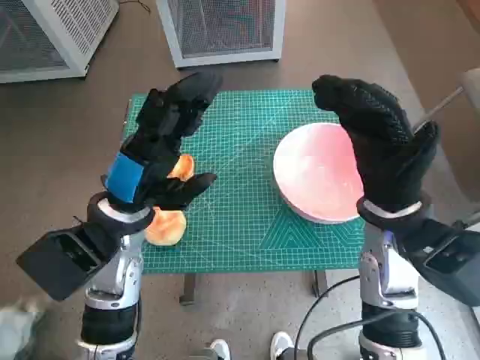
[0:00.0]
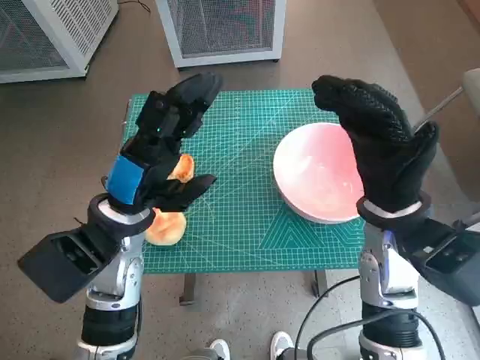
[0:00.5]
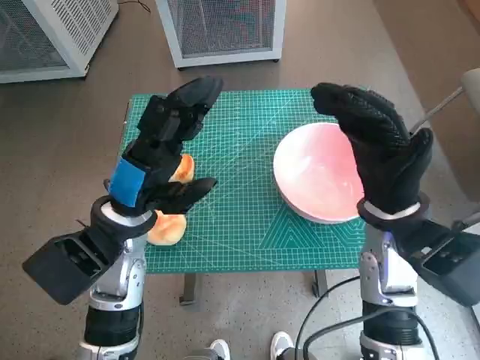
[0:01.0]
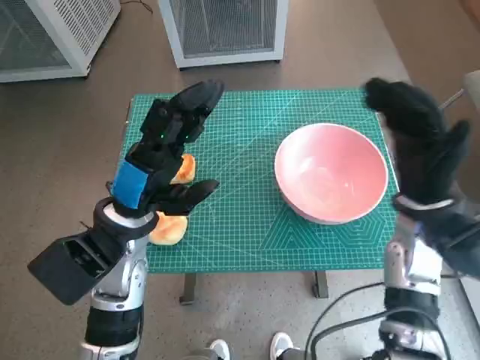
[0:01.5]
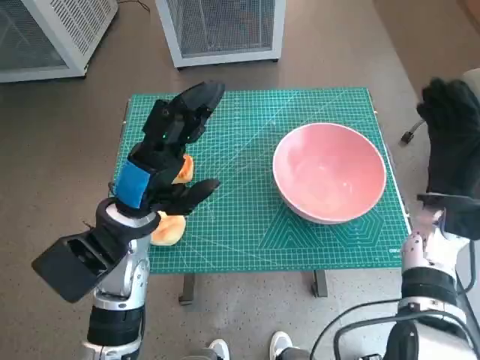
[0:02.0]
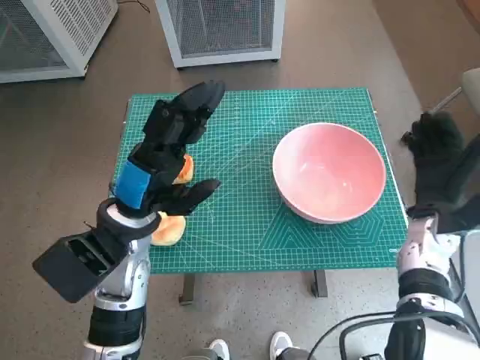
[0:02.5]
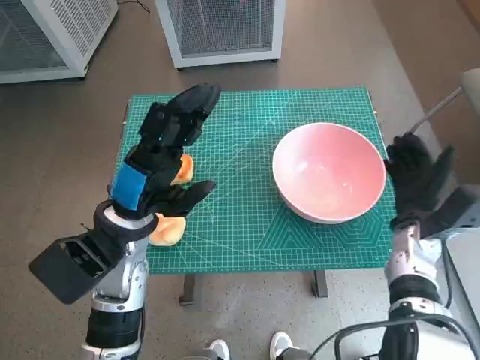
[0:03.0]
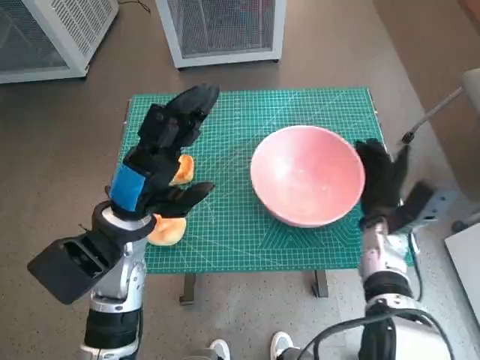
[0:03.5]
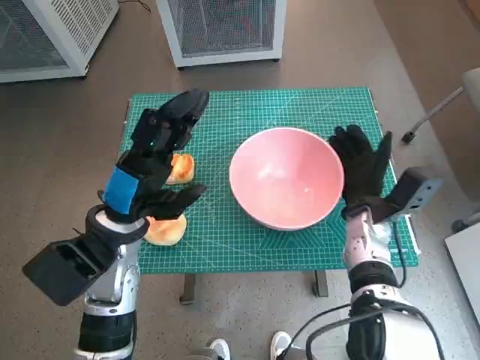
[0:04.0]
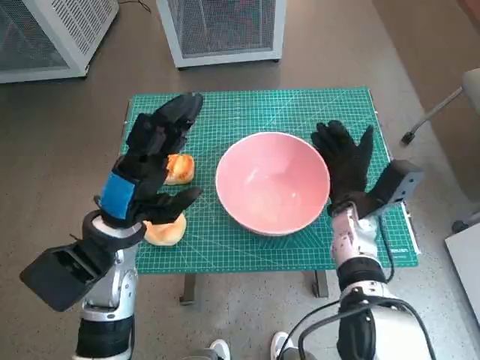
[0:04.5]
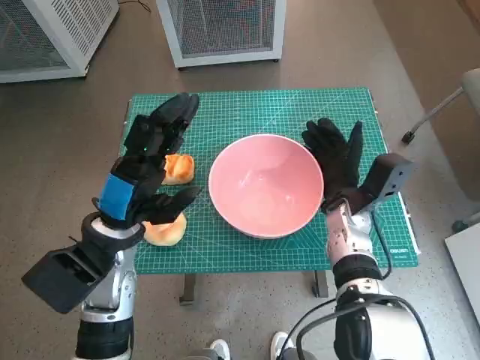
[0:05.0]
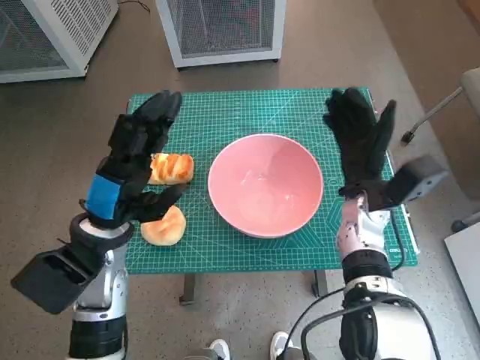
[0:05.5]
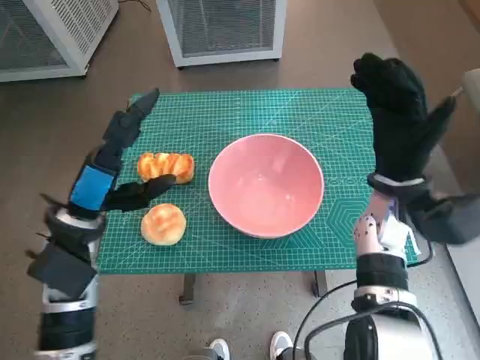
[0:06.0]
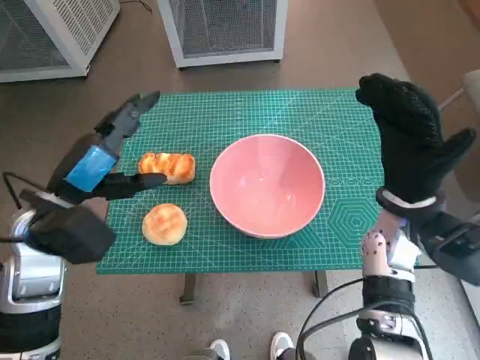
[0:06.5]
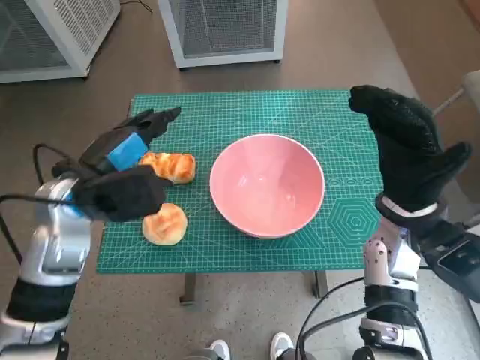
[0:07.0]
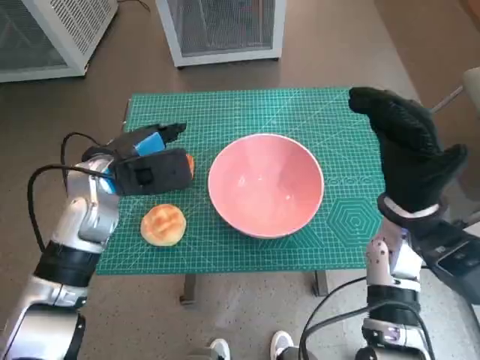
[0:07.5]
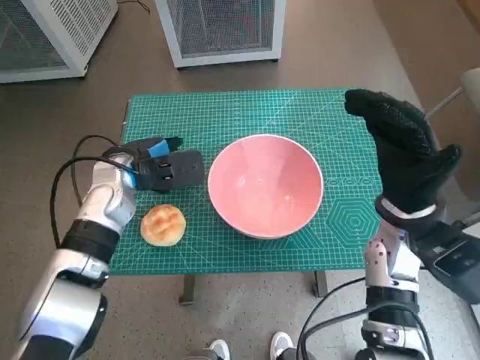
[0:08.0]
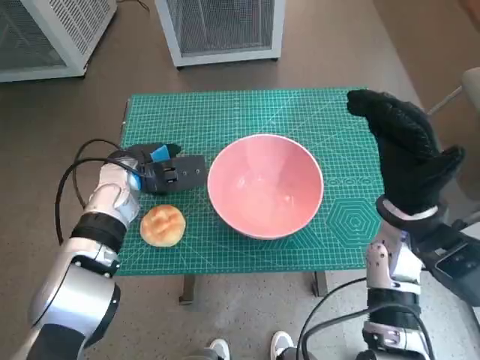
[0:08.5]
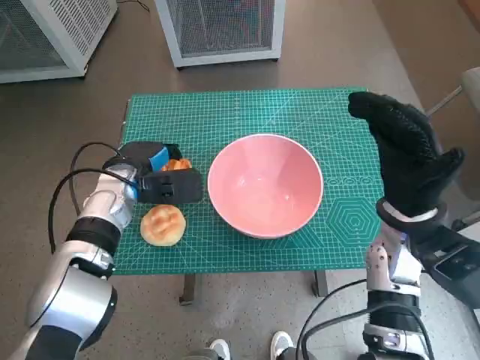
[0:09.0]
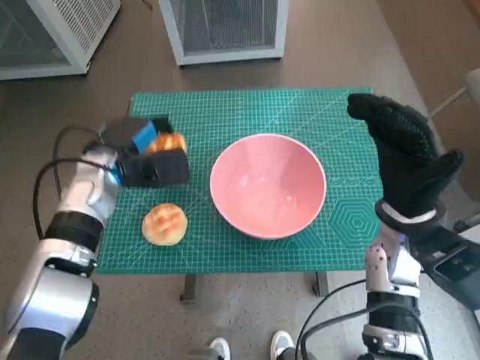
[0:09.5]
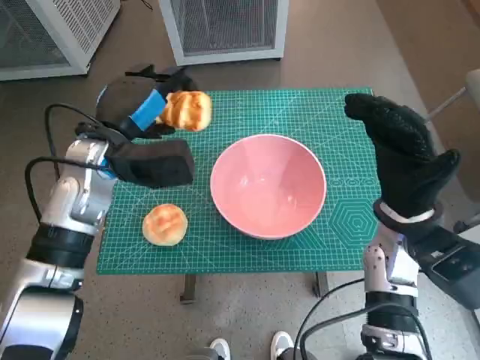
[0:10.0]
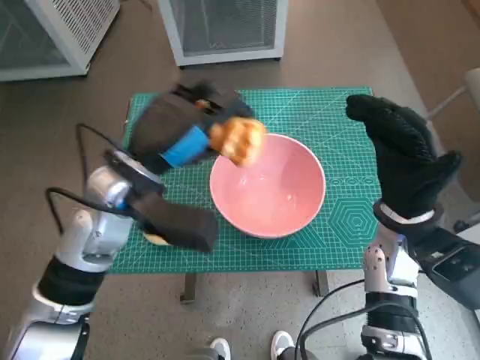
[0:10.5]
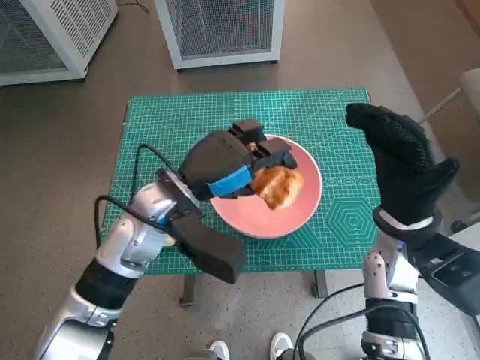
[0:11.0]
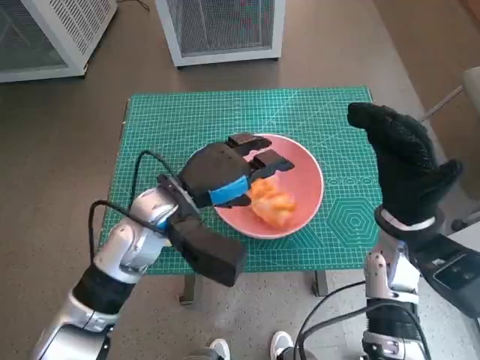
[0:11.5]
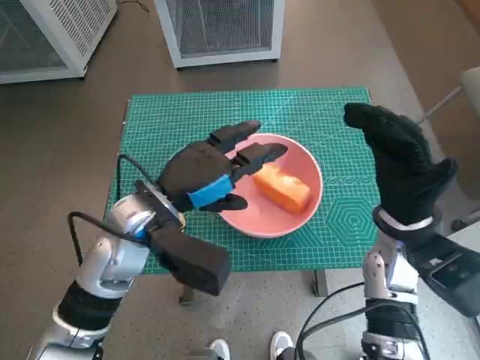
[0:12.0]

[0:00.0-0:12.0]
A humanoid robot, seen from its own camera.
Task of the whole recording: Push the bowl into the center of the table and put the bread into the bowl.
Step, 0:00.0 to 0:05.0: Move the pink bowl to the center of table with right hand.
Step, 0:05.5 to 0:08.5: Grasp the long bread with left hand.
Step, 0:09.0 to 0:11.5: Place the long bread in pink bowl with left hand.
0:02.0 to 0:04.0: The right hand moves to the left and downward, approximately 10 cm.
0:04.0 to 0:06.0: The right hand goes some 10 cm upward.
0:06.0 to 0:08.0: The left hand goes approximately 10 cm forward.
0:08.0 to 0:10.0: The left hand is displaced upward by approximately 5 cm.
0:10.0 to 0:12.0: The left hand goes roughly 10 cm backward and to the right.

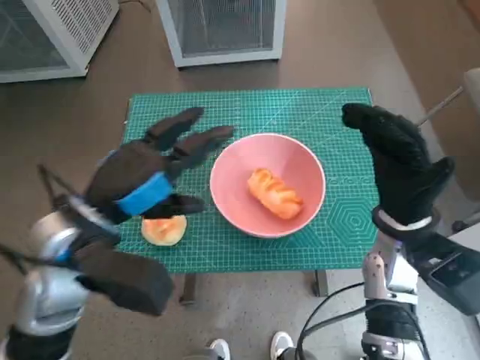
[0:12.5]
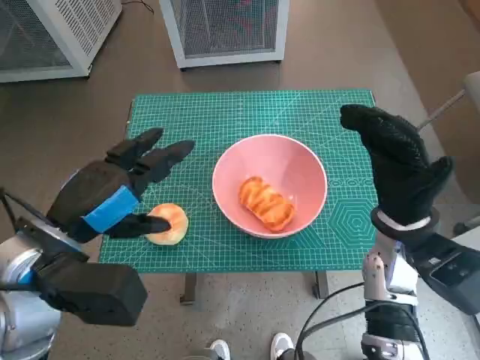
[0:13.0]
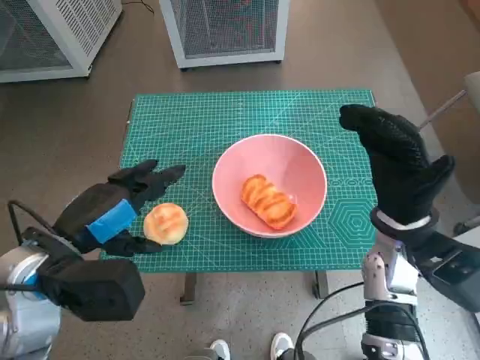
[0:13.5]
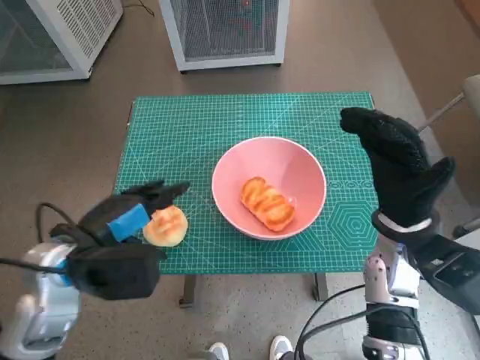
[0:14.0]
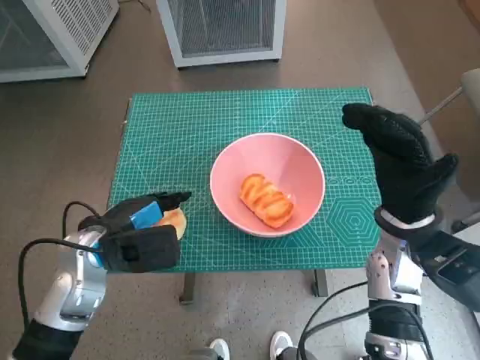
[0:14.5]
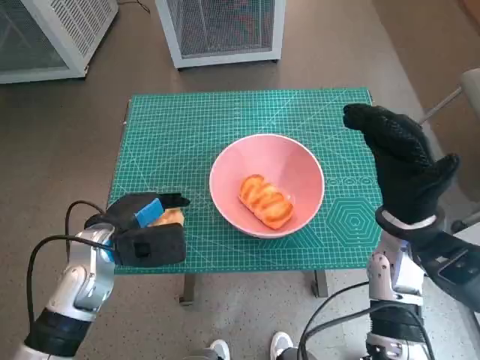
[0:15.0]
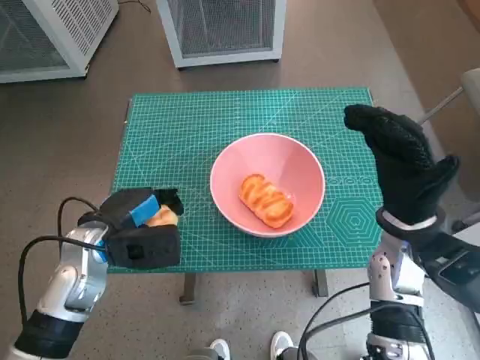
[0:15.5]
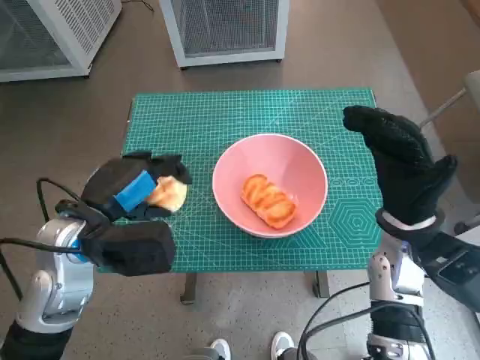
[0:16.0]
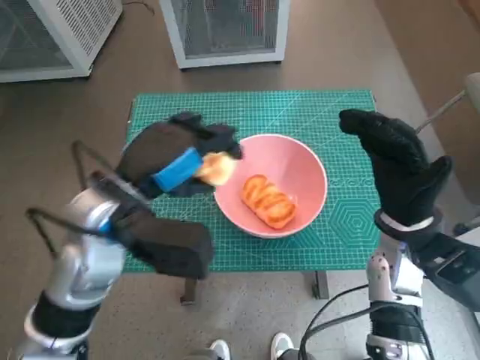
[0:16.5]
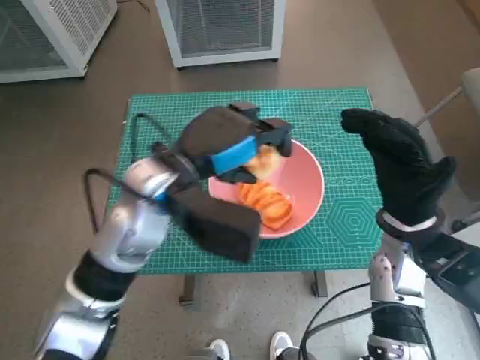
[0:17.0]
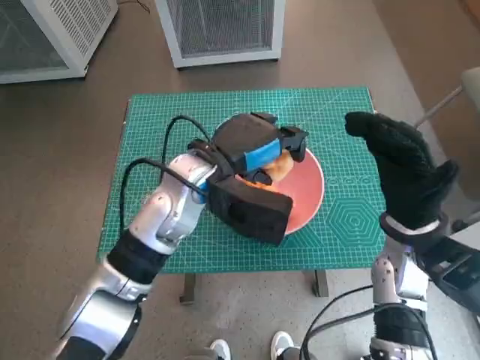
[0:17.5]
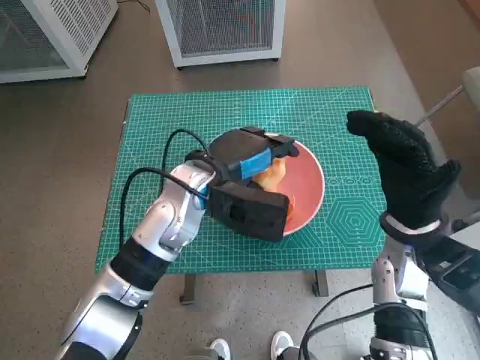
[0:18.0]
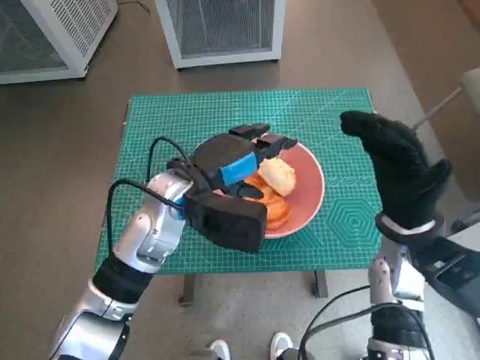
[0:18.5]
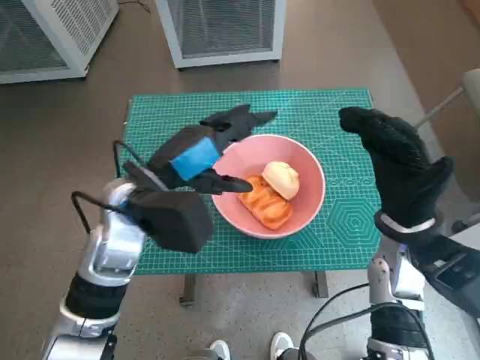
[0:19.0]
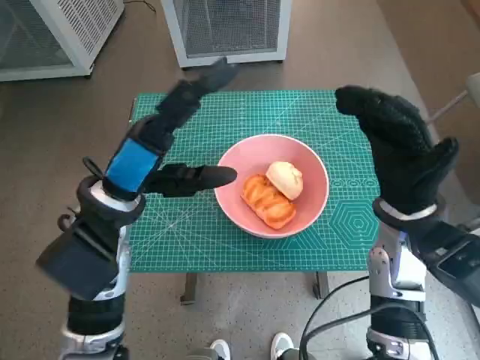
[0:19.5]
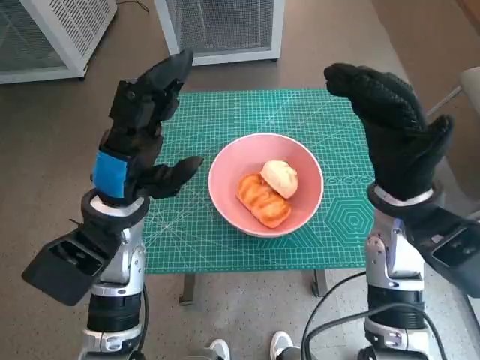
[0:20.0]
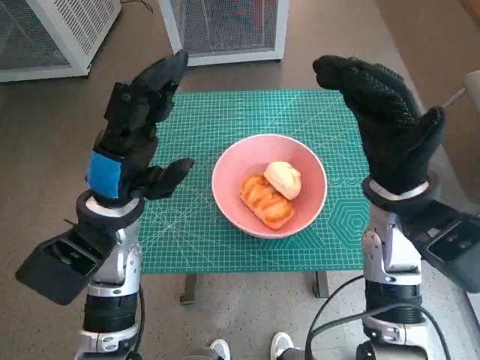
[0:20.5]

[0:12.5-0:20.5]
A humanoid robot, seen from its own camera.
Task of the whole recording: Push the bowl into the center of the table and put the bread into the bowl.
Step, 0:12.5 to 0:15.0: Grasp the round bread with left hand.
Step, 0:15.5 to 0:18.0: Place the round bread in pink bowl with left hand.
0:12.5 to 0:14.5: The left hand is displaced downward by some 10 cm.
0:14.5 to 0:16.5: The left hand shifts about 10 cm upward and to the right.
0:16.5 to 0:18.5: The left hand shifts some 10 cm to the right and forward.
0:18.5 to 0:20.5: The left hand moves to the left, approximately 10 cm, while the right hand moves upward, some 5 cm.

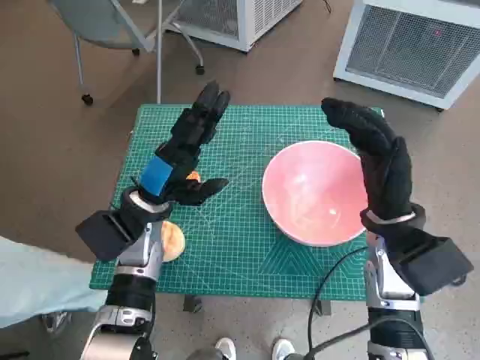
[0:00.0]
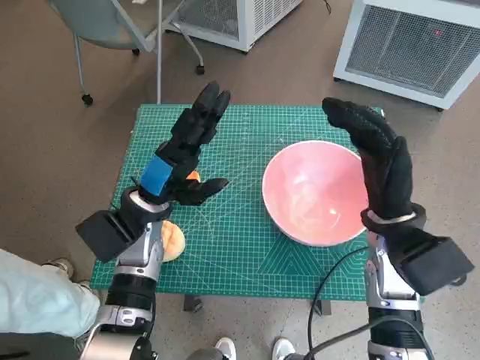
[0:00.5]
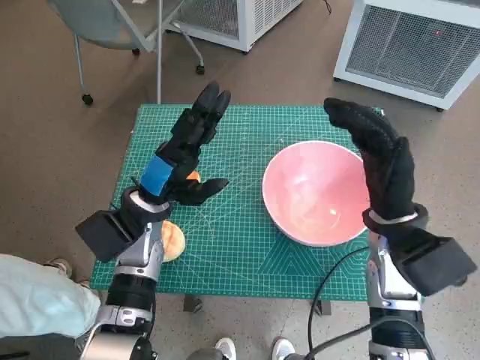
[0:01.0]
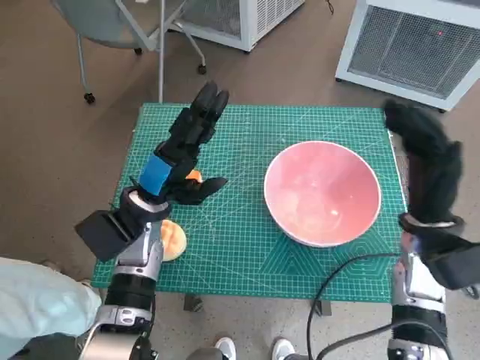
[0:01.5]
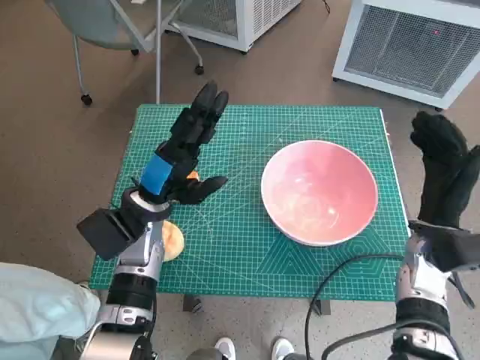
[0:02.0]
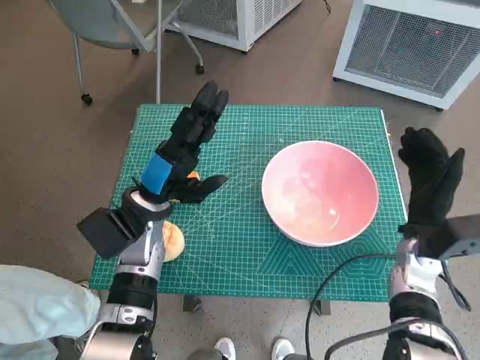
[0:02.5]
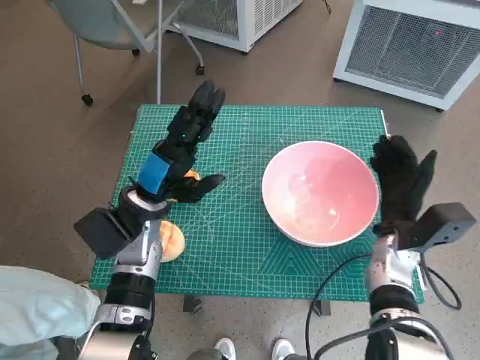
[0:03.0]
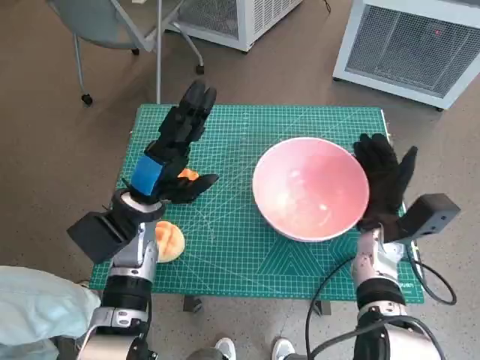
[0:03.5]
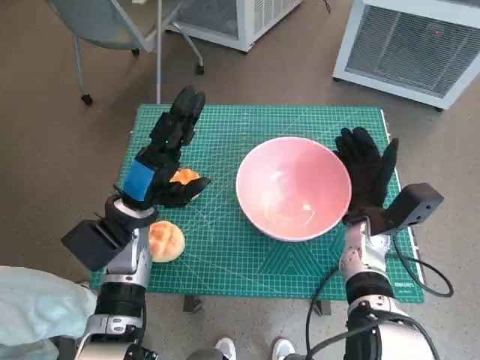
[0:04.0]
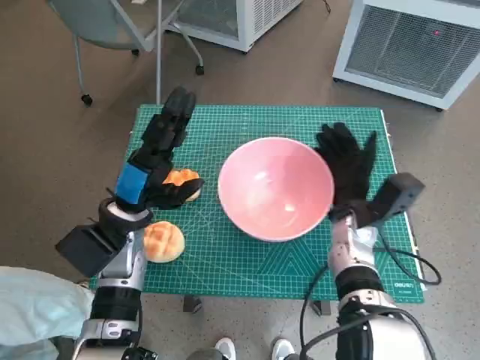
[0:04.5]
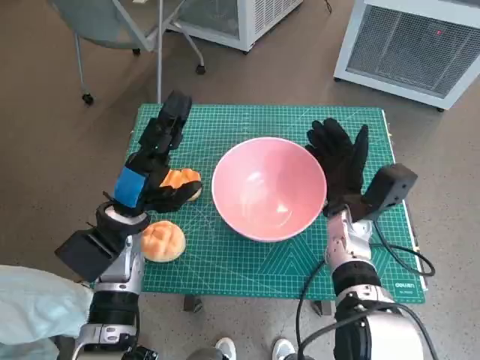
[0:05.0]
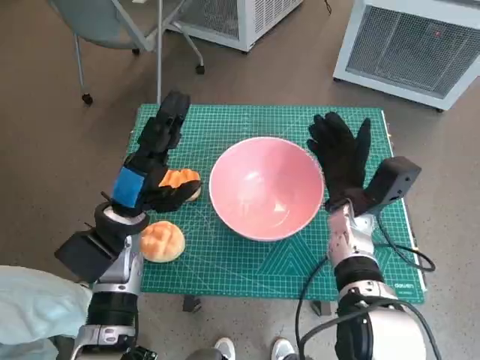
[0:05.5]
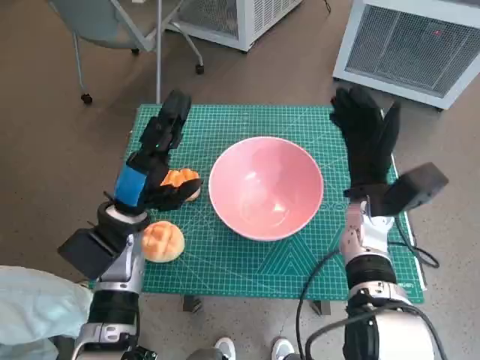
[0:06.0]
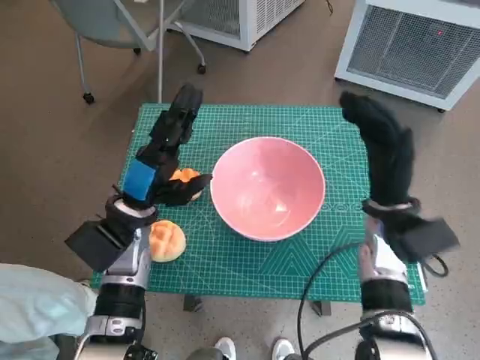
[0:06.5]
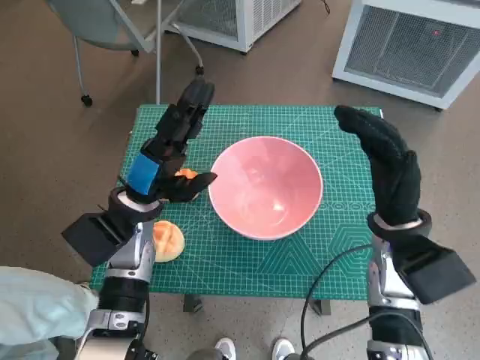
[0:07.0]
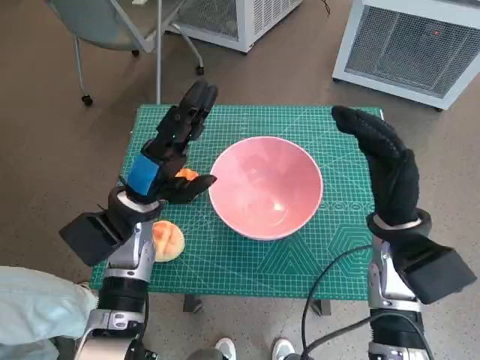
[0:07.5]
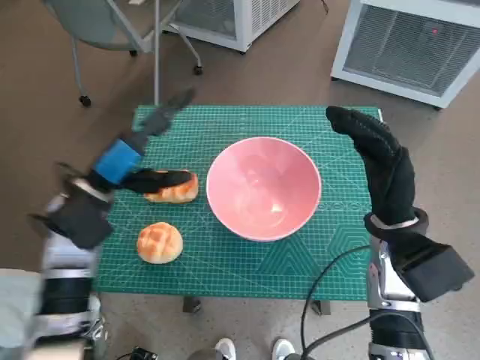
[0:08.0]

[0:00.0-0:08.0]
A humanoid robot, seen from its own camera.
Task of the whole recording: Push the bowl into the center of the table and put the bread into the bowl.
Step, 0:00.0 to 0:05.5: Move the pink bowl to the center of table with right hand.
0:02.0 to 0:04.0: The right hand heads to the left, covering roughly 5 cm.
0:06.0 to 0:08.0: The right hand is displaced backward by roughly 5 cm, while the left hand shifts by about 5 cm.
